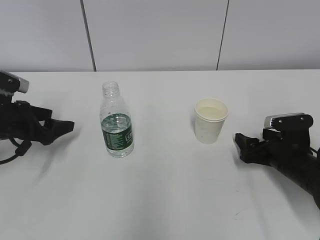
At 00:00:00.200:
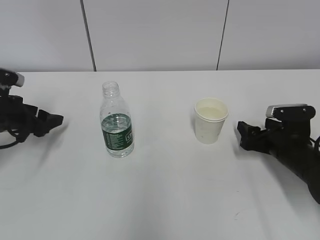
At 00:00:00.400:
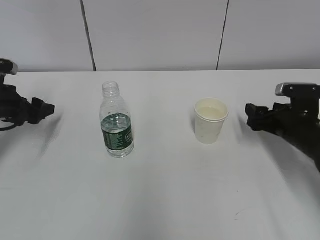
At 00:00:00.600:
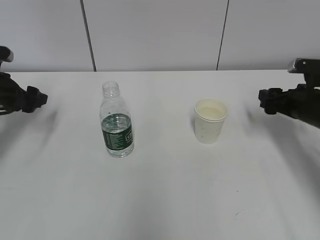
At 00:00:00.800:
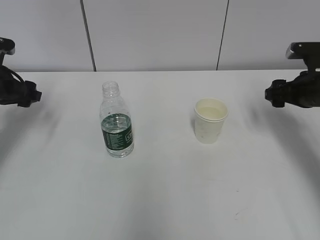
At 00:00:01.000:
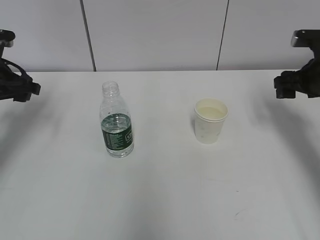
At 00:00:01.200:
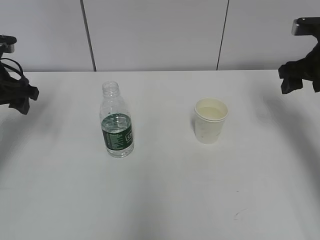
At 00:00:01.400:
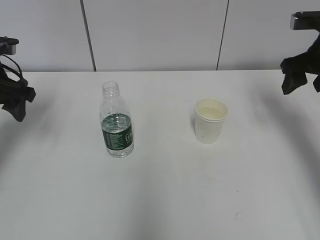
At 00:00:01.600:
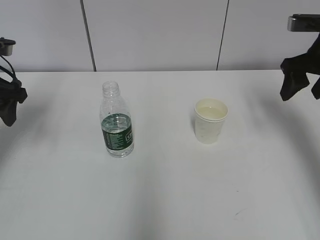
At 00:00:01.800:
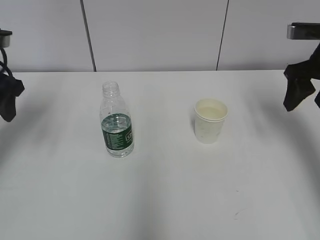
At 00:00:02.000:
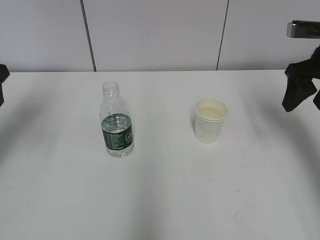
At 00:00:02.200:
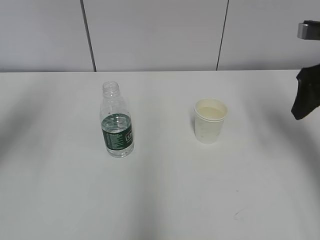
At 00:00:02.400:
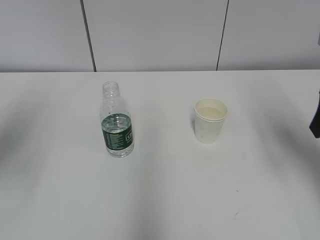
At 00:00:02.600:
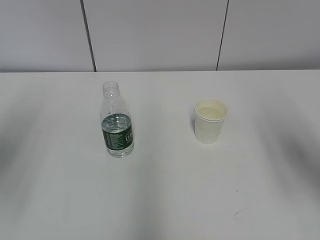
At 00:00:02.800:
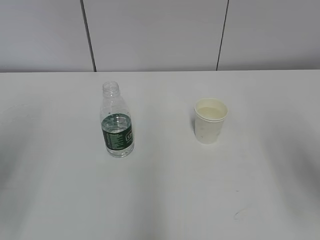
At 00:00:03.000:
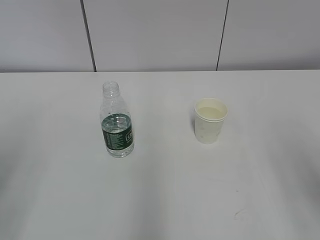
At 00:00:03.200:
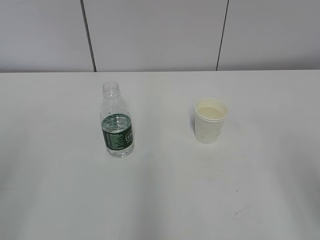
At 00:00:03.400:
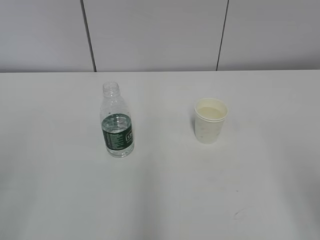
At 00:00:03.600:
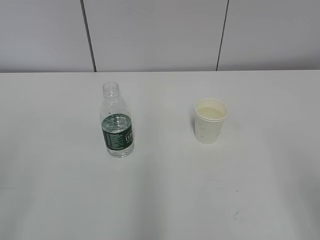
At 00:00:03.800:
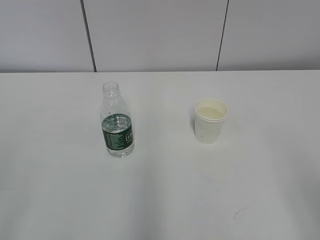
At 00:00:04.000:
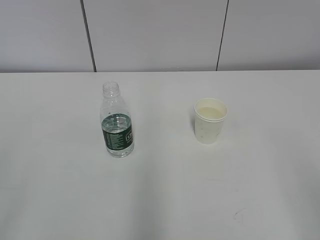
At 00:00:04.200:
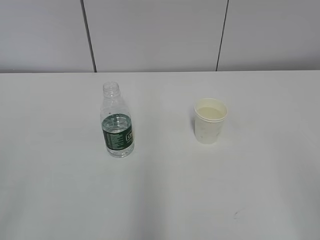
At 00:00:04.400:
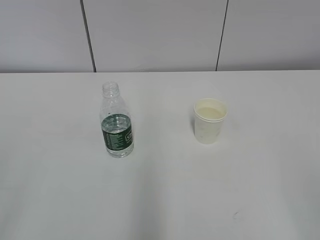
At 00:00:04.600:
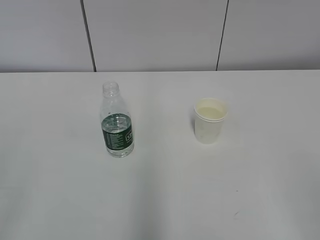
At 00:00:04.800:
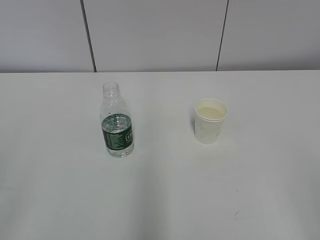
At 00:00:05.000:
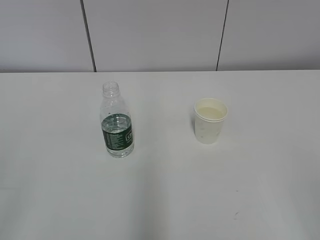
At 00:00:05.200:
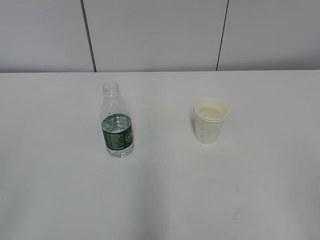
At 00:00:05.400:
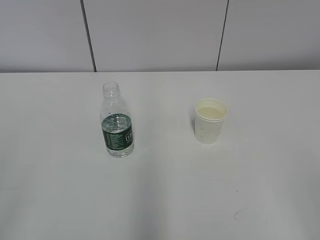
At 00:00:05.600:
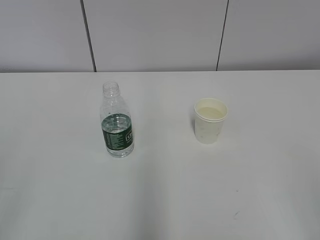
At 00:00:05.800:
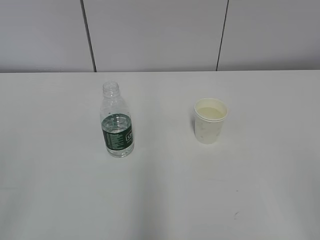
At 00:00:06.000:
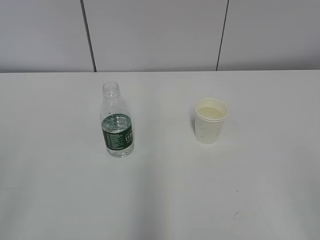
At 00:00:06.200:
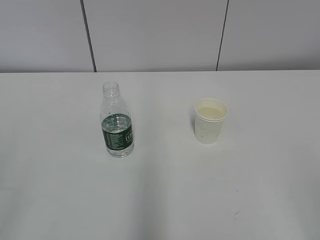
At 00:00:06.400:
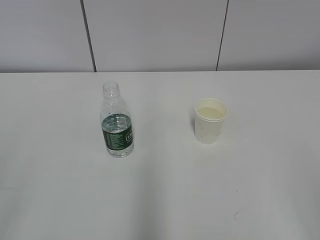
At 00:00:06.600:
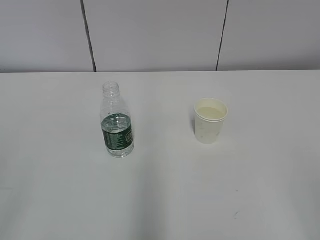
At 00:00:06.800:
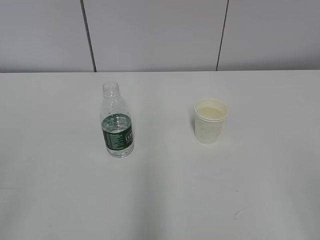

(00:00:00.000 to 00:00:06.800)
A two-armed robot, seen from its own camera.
00:00:00.000 - 00:00:01.400: The right gripper goes some 20 cm upward; the left gripper travels upward by some 10 cm.
00:00:01.400 - 00:00:02.800: Both grippers move backward, about 20 cm.
00:00:02.800 - 00:00:04.000: Both grippers travel together backward, approximately 15 cm.
00:00:05.400 - 00:00:06.800: The two grippers keep their place.
